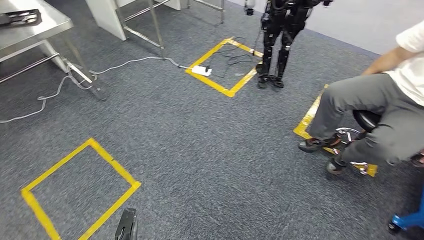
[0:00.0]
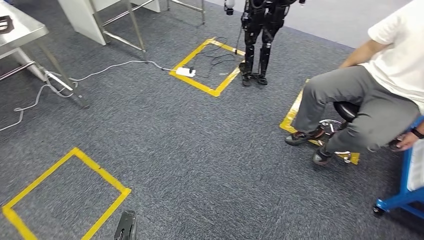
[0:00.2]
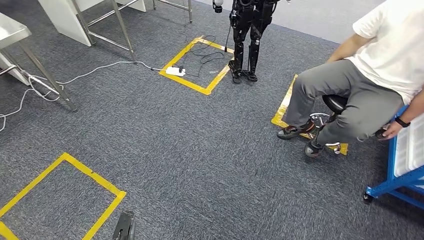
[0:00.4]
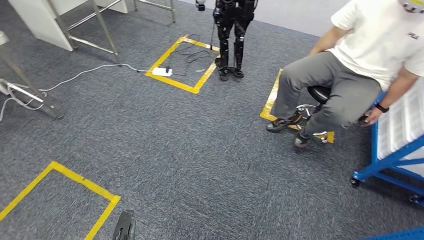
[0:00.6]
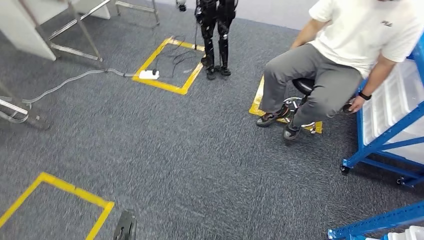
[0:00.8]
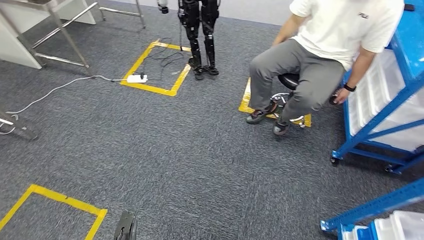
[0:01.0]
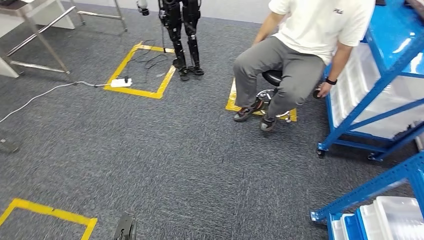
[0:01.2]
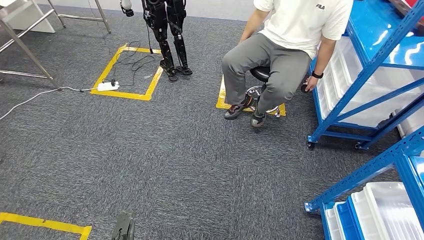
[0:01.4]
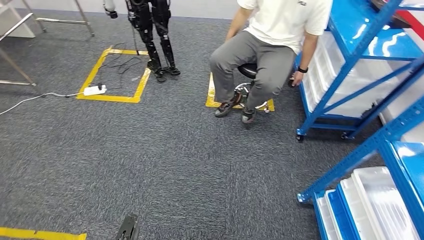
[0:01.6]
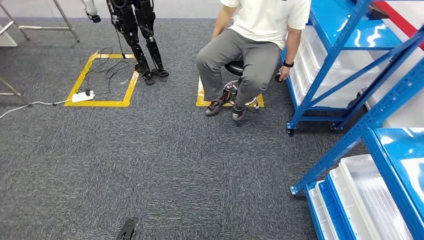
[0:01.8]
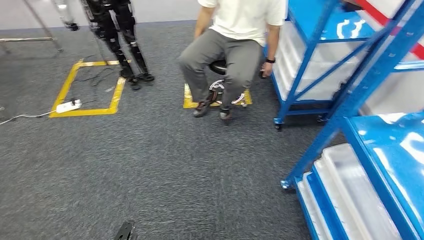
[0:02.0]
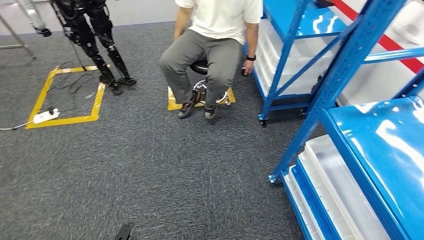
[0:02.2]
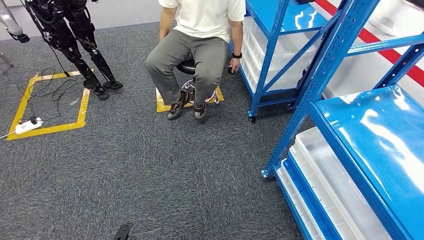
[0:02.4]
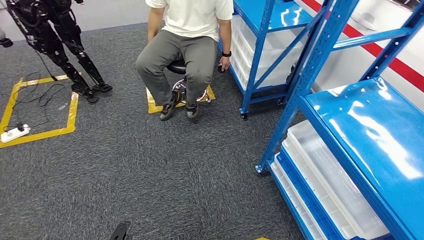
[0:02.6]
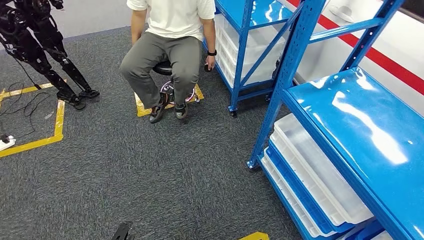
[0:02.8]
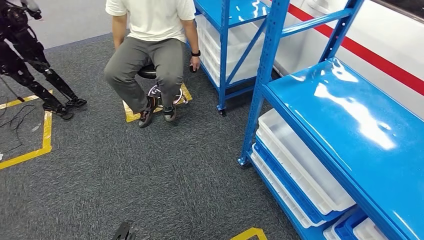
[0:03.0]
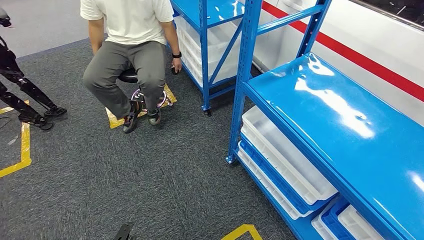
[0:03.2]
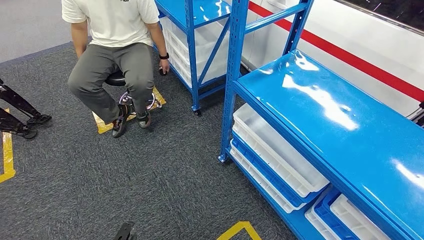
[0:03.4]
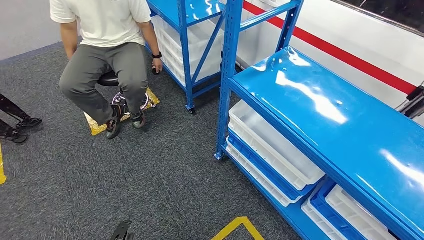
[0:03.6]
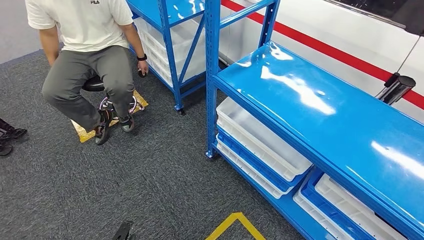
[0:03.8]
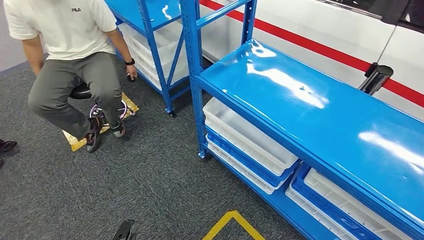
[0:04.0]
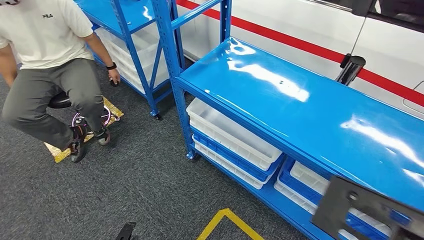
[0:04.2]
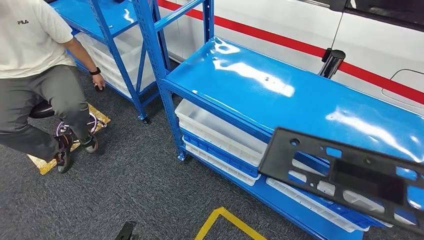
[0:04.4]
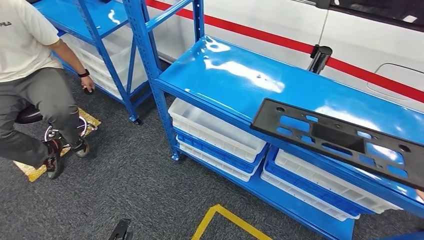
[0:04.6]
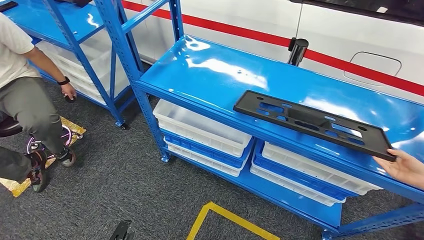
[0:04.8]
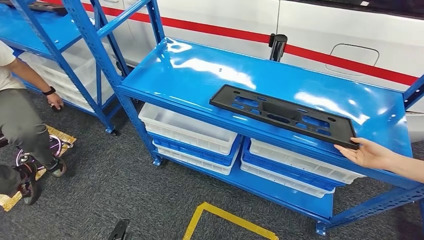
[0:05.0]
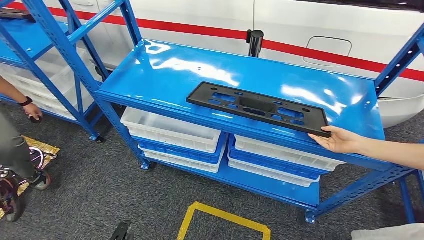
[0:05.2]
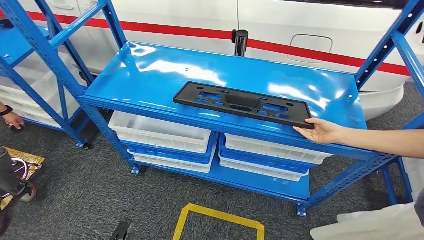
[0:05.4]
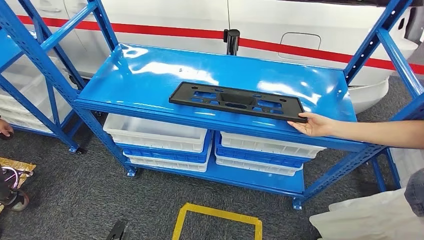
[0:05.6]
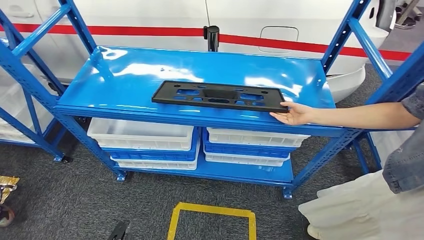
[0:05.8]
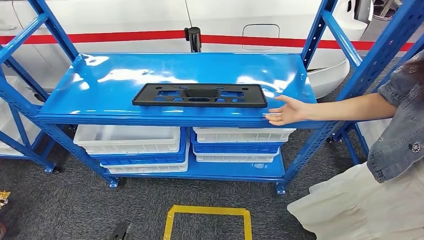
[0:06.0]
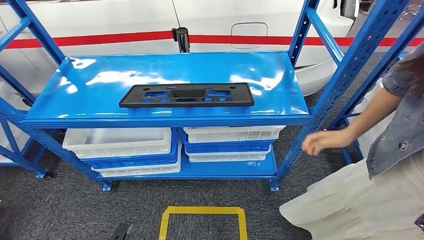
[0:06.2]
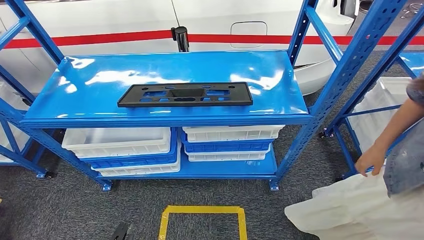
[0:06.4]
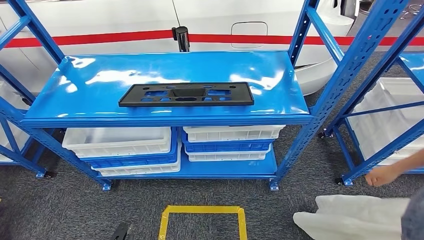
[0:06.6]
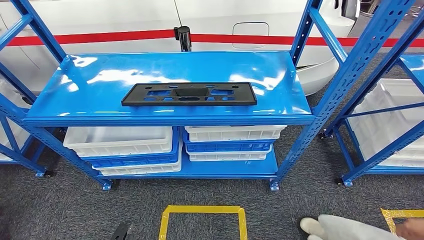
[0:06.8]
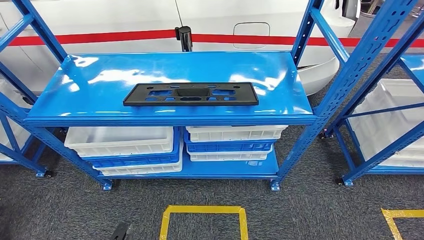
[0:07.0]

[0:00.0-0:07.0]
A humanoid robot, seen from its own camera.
Step, 0:00.0 to 0:07.0: Move to the initial position of the shelf.

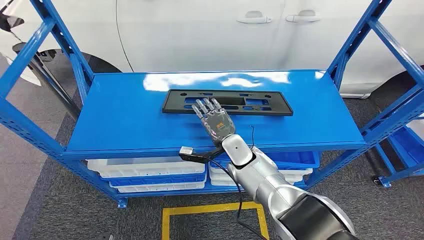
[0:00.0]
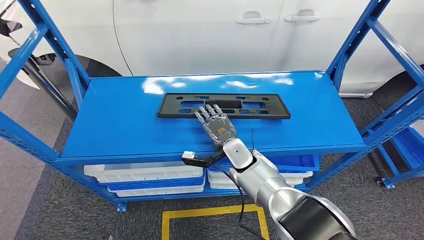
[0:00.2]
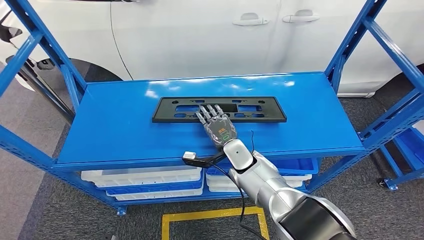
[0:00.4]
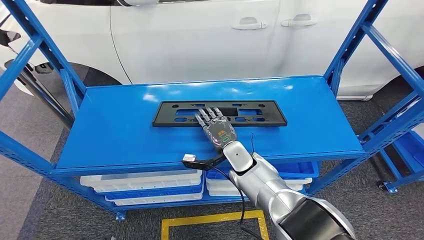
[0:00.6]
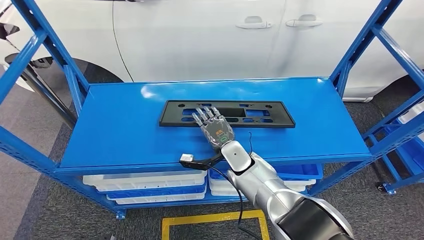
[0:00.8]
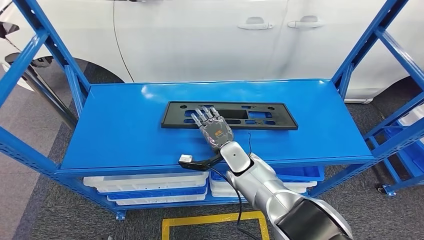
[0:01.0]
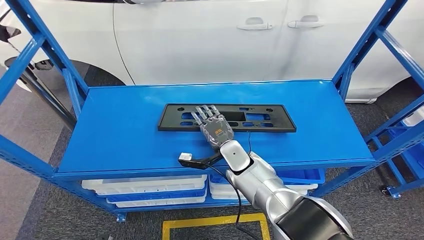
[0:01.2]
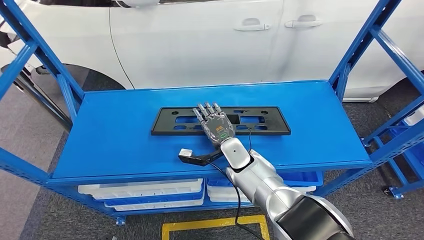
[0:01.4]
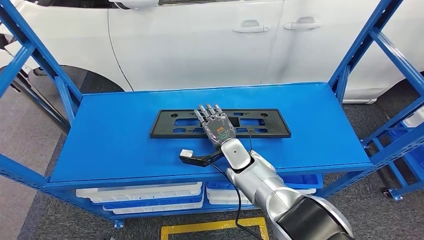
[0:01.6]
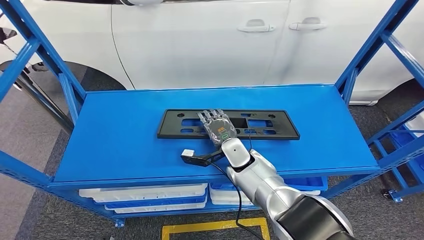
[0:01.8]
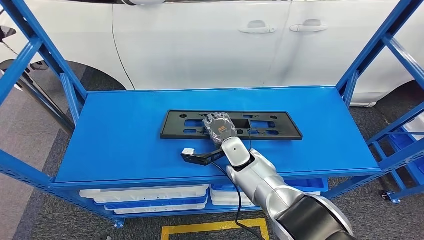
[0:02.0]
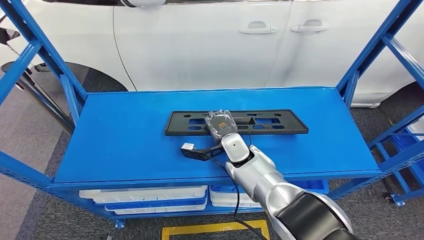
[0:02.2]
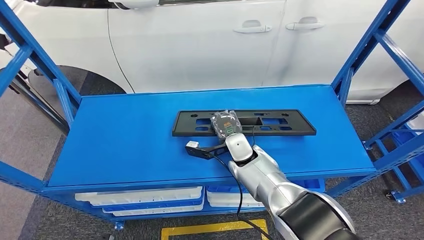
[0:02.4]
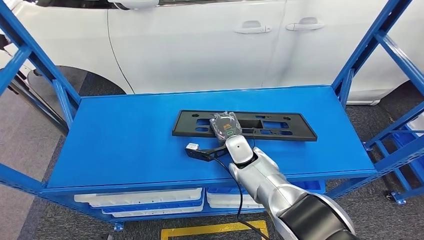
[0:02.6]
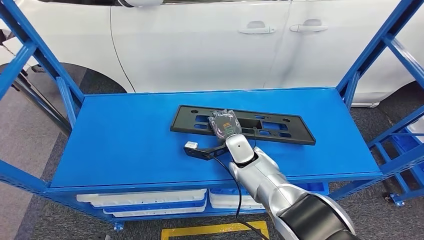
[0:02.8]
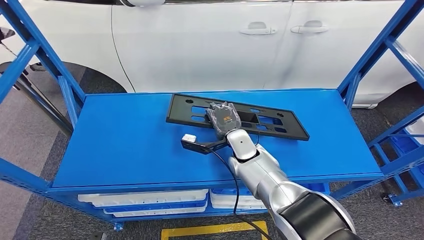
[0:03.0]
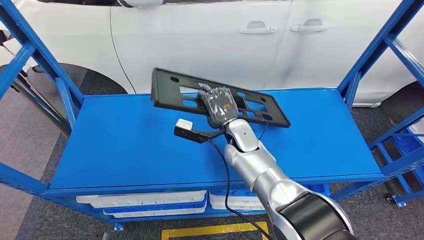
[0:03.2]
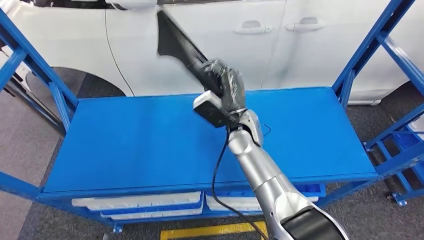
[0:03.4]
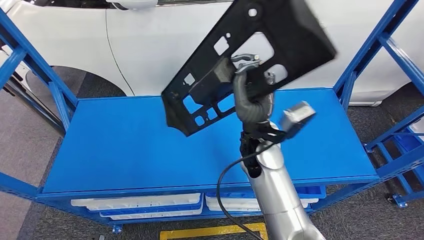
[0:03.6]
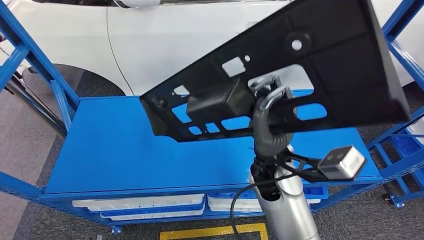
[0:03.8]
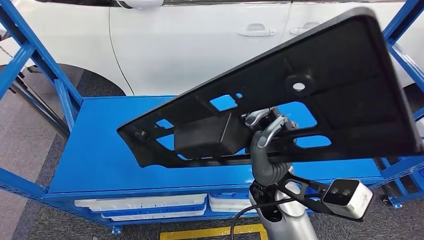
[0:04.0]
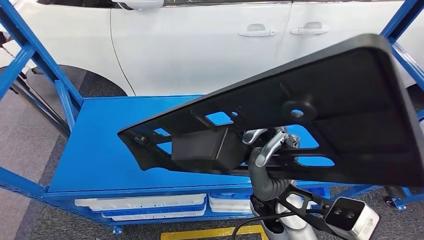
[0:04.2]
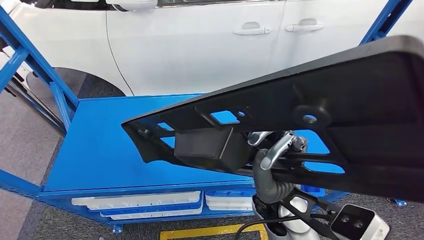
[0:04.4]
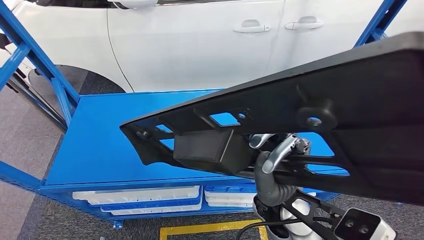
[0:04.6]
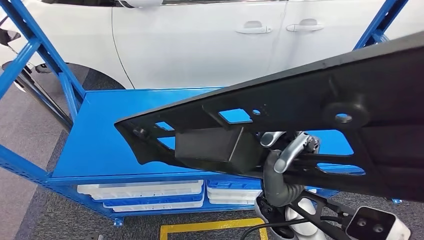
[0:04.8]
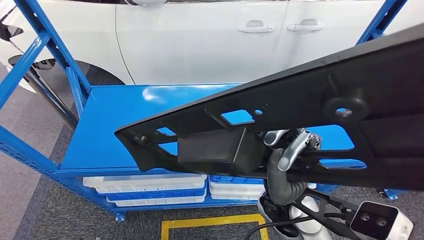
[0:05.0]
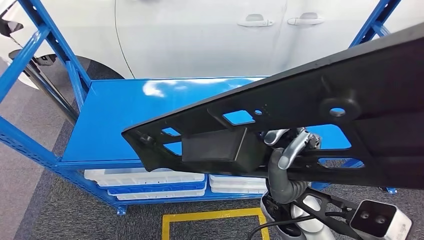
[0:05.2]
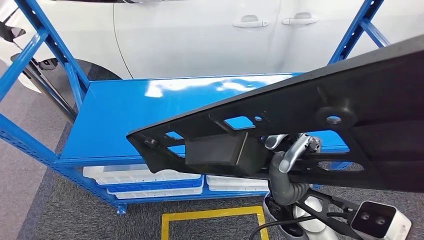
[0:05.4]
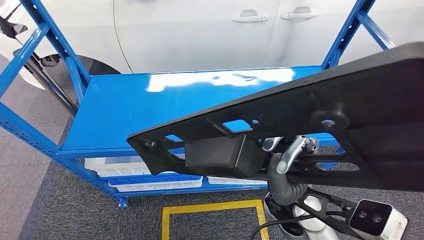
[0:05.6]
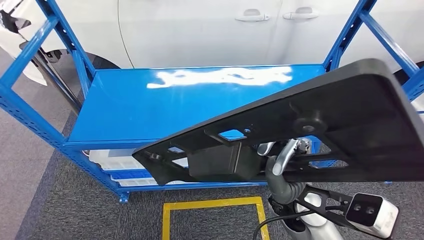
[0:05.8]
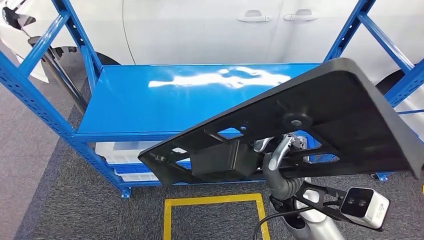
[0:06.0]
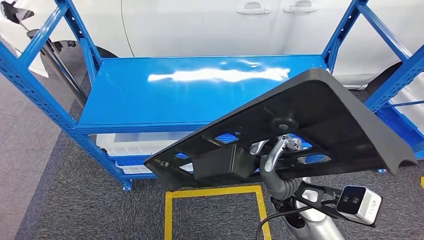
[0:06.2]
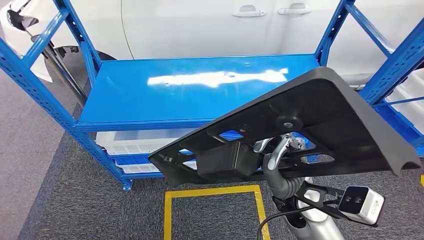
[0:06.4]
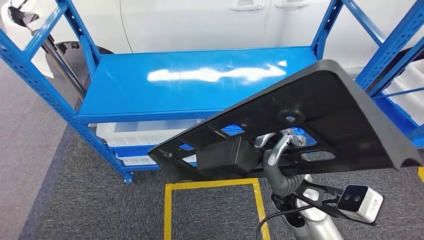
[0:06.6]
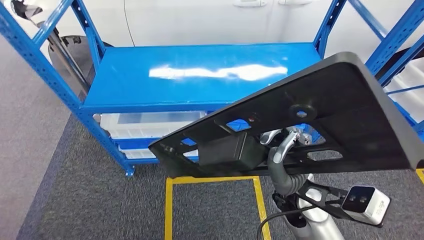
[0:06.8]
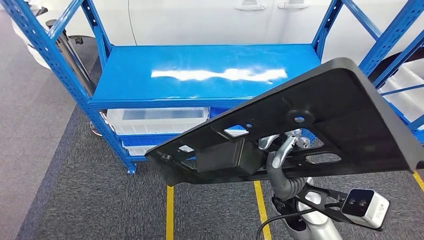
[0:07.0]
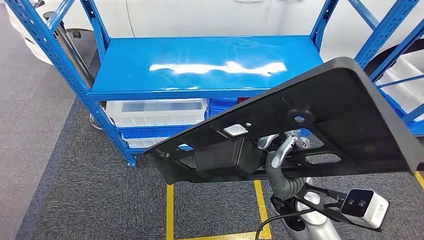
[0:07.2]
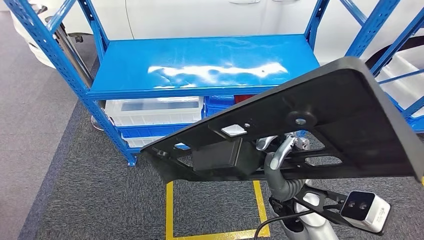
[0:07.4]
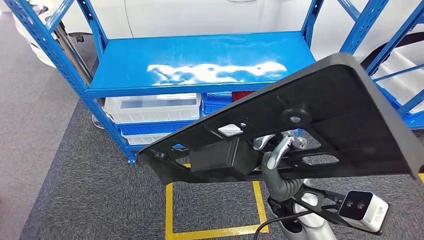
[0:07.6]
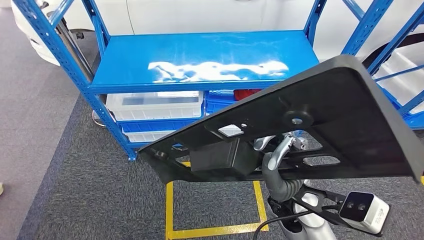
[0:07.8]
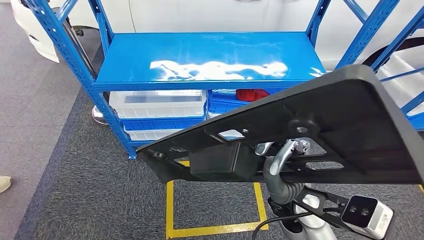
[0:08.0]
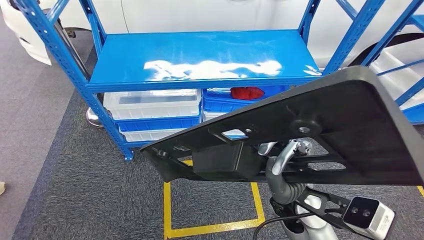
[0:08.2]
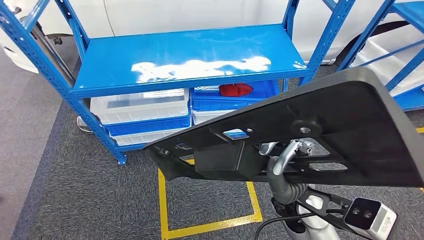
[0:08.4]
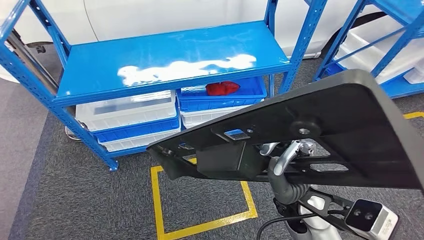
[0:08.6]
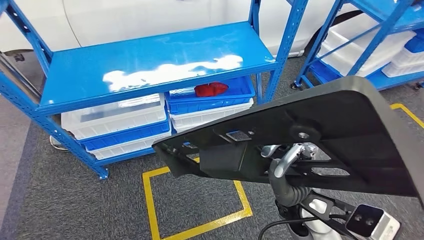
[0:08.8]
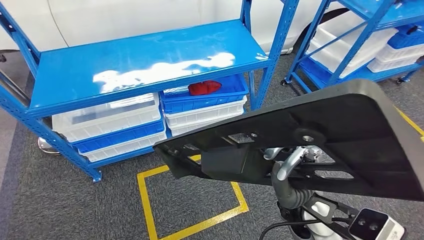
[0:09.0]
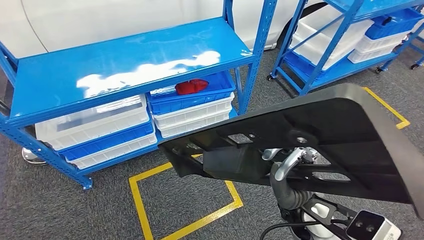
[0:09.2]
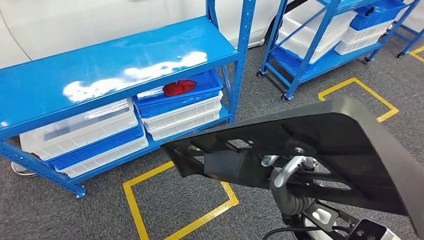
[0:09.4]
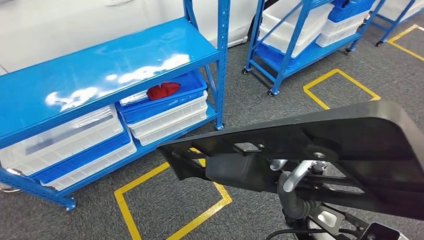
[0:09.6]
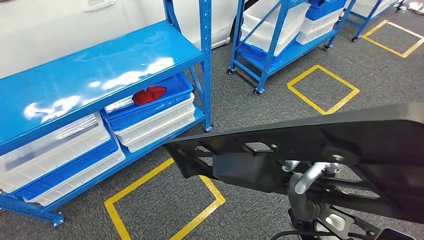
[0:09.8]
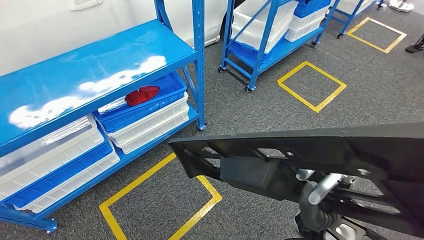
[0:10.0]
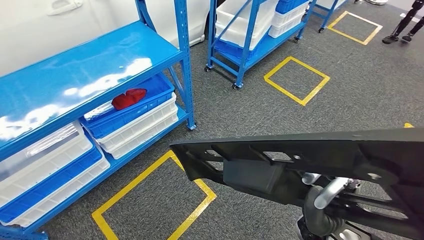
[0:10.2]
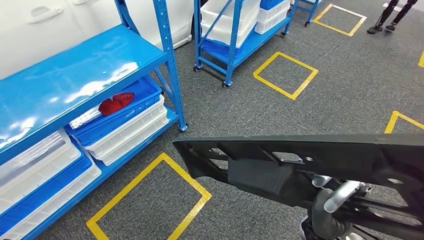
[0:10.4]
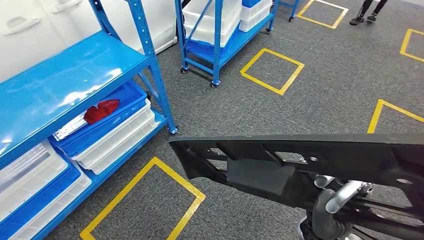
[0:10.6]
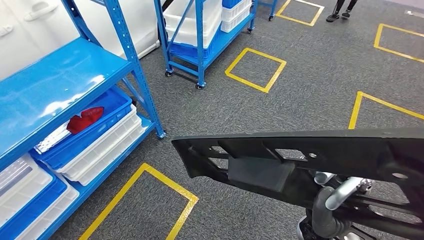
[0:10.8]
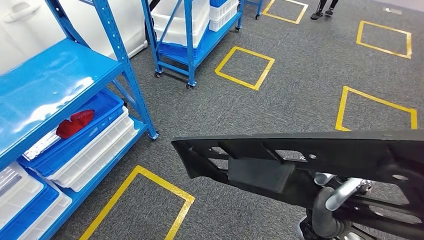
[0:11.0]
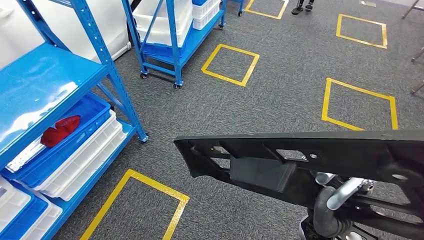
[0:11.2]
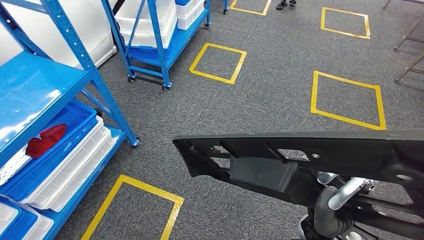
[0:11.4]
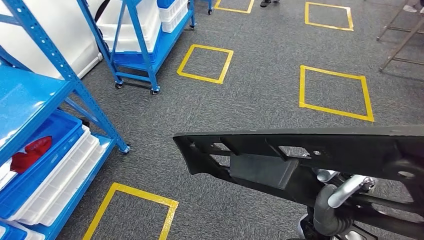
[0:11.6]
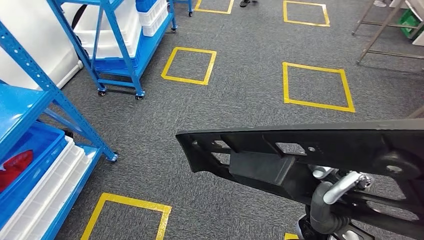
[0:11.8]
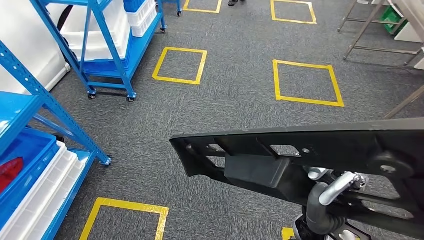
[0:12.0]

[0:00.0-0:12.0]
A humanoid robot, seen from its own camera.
Step, 0:00.0 to 0:03.8: Pick up the large material from the shelf.
